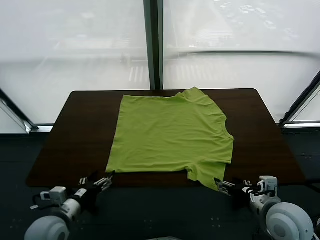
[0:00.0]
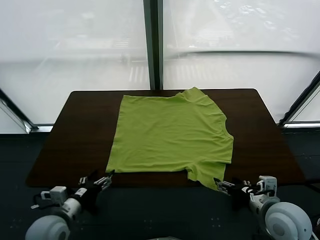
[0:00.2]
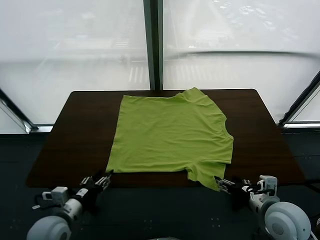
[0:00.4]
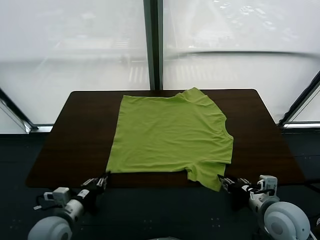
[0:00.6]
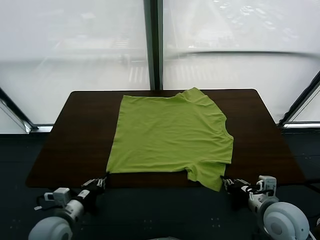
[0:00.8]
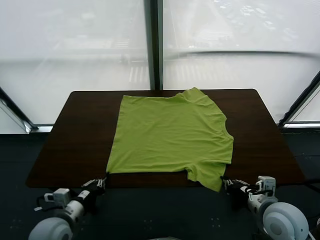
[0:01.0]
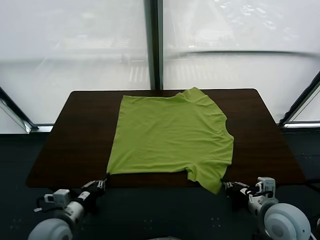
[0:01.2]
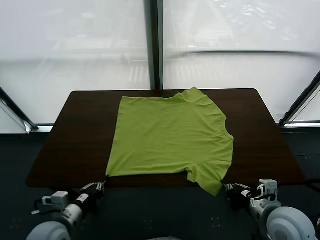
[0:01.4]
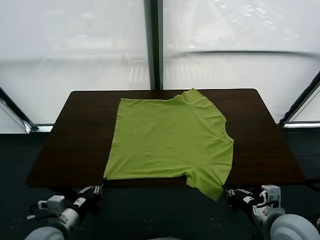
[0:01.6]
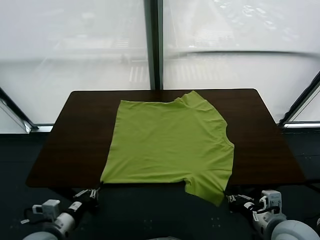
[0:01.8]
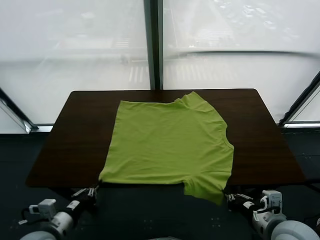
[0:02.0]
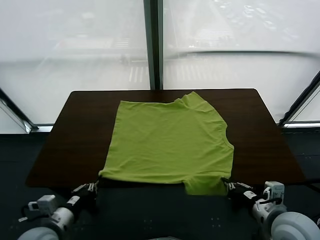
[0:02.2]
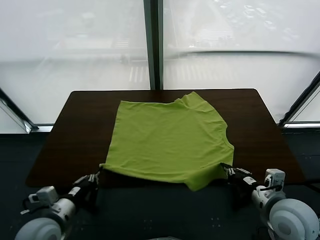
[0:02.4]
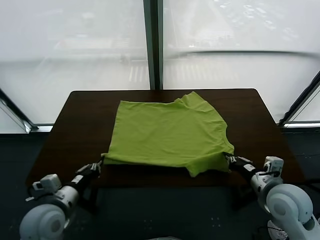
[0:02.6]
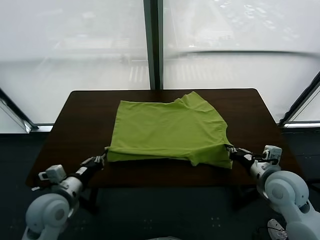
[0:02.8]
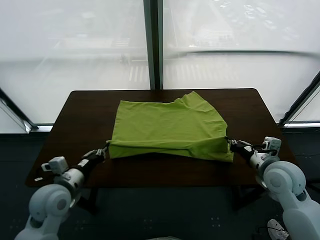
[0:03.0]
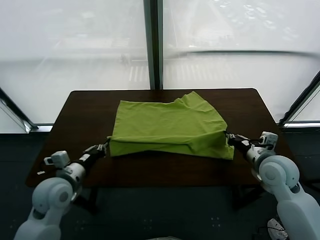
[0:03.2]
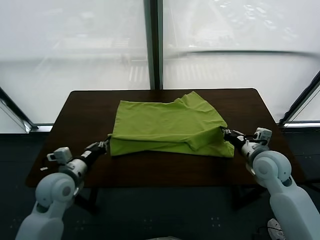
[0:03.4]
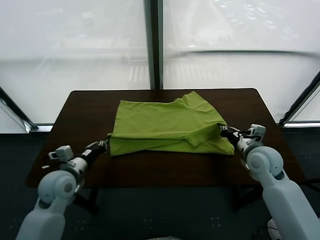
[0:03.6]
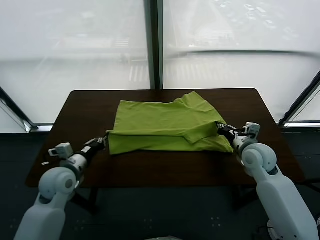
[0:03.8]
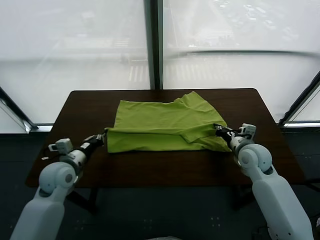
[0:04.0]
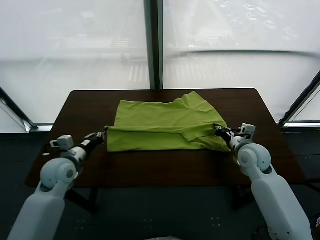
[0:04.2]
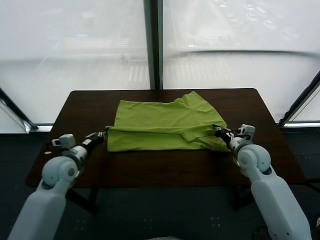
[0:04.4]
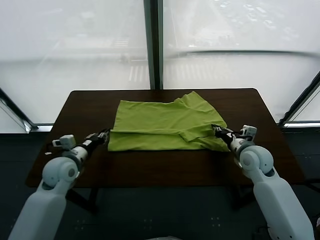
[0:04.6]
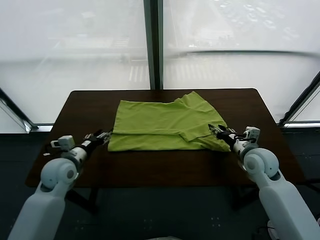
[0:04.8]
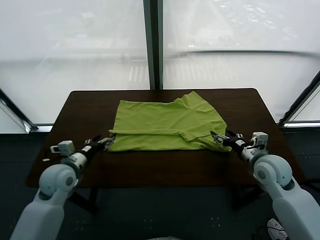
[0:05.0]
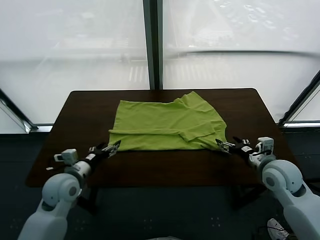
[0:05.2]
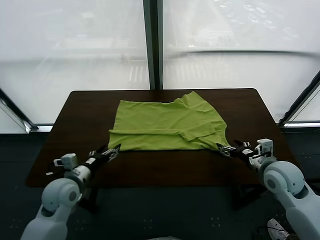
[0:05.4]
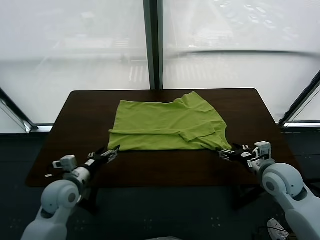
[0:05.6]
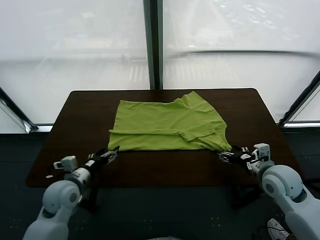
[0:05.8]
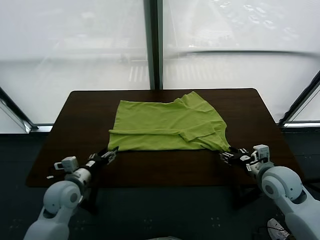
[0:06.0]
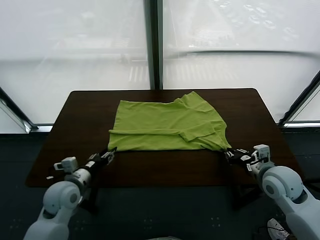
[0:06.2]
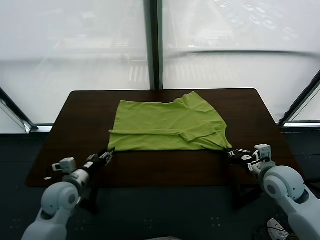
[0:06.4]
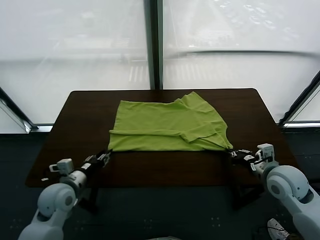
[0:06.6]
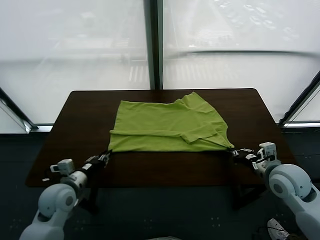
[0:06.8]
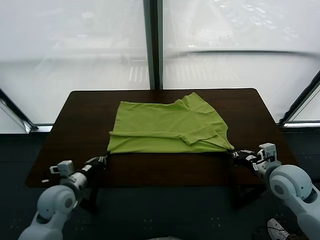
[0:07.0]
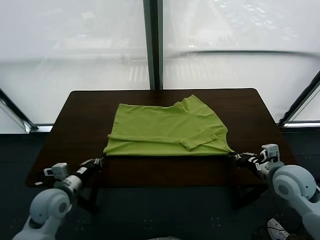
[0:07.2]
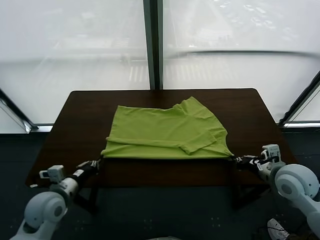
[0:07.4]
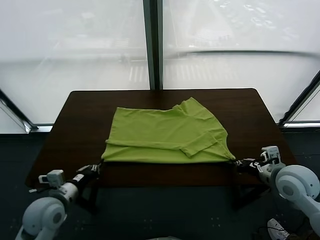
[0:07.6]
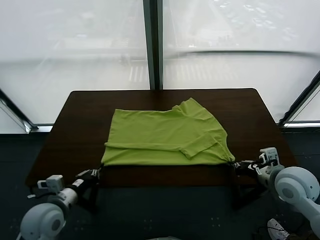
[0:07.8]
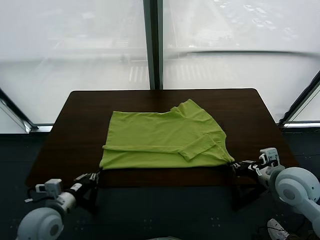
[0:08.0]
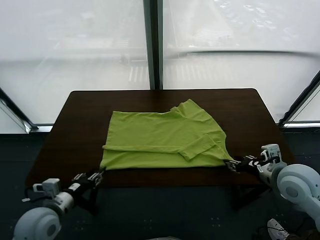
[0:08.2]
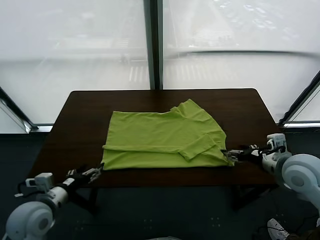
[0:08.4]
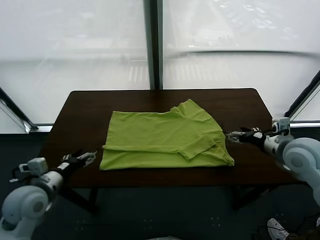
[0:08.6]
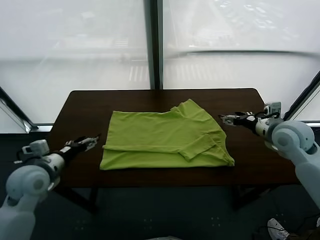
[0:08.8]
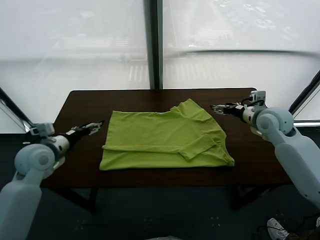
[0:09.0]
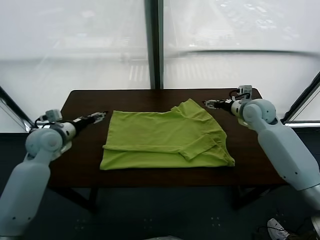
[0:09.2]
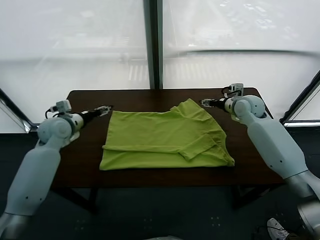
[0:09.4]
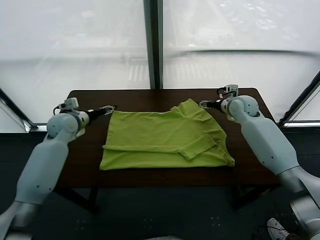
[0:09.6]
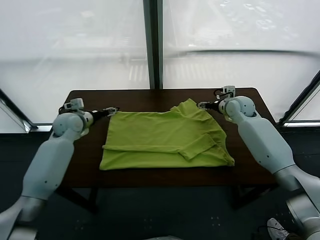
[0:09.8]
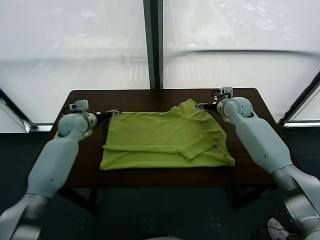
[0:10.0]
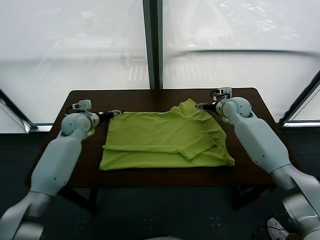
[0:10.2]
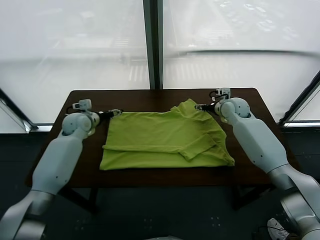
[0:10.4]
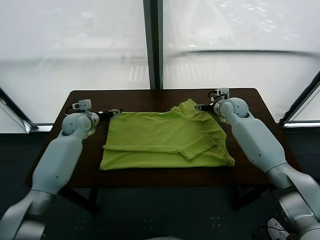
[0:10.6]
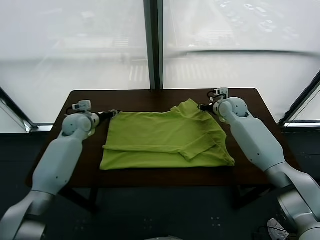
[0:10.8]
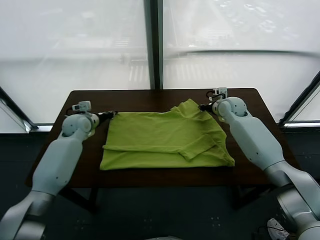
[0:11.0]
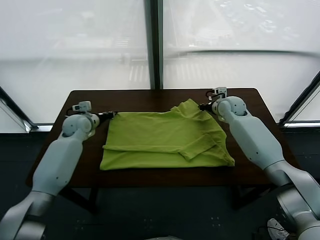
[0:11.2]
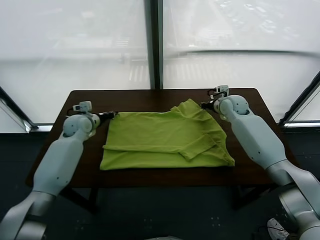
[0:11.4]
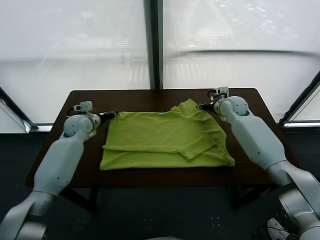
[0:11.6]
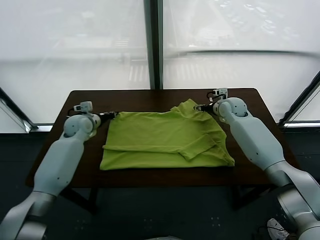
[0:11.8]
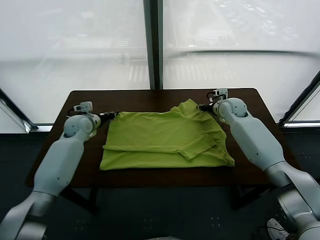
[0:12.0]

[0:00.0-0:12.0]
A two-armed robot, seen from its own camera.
Task of the whole recording: fold and organize the clothes.
Step, 0:00.0 to 0:01.4: use both grippers simultaneously to clamp the lower edge of the clothing fabric.
Step, 0:01.6 to 0:04.8: use both grippers to drag the lower edge of the fabric forward and fold it over the upper edge.
Step, 0:05.0 to 0:08.2: Drag the clothes downward with both gripper.
0:01.6 to 0:03.0: The left gripper is displaced forward by roughly 10 cm. The right gripper is displaced forward by some 15 cm.
0:03.0 to 0:04.4: The right gripper goes about 10 cm forward and downward. The left gripper is displaced forward by about 10 cm.
0:04.4 to 0:06.0: The two grippers go some 10 cm backward. The left gripper opens its fingers; the right gripper opens, then closes once more.
0:06.0 to 0:07.6: The left gripper moves approximately 5 cm, and closes up.
0:07.6 to 0:09.0: The left gripper is displaced forward and upward by approximately 10 cm, and opens. The right gripper travels forward by about 20 cm, and opens its fingers.
0:09.0 to 0:10.4: The left gripper moves forward, roughly 20 cm. The right gripper goes some 15 cm forward, downward and to the left.
0:10.4 to 0:12.0: The left gripper closes up. Meanwhile the right gripper closes.

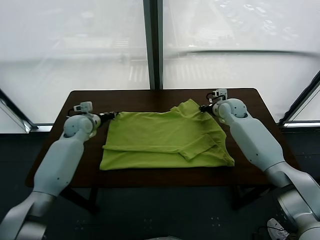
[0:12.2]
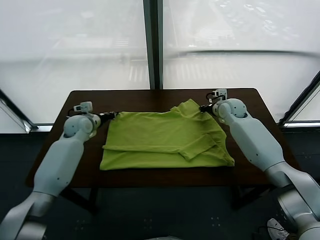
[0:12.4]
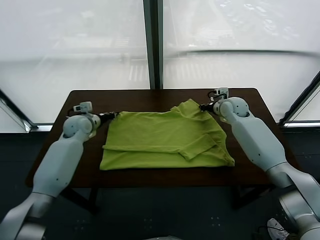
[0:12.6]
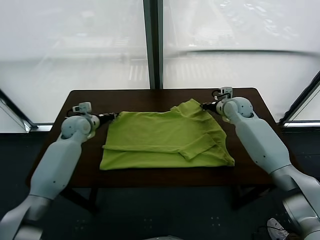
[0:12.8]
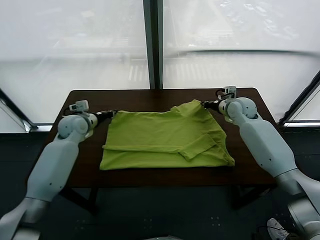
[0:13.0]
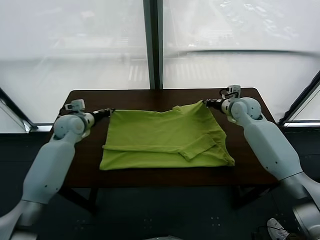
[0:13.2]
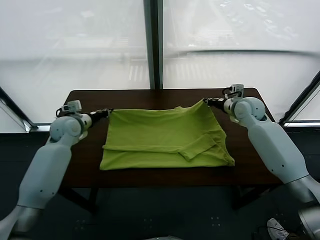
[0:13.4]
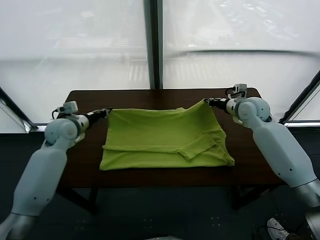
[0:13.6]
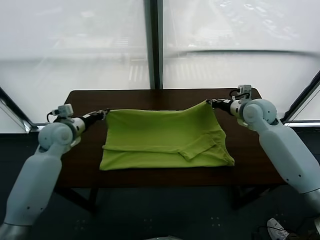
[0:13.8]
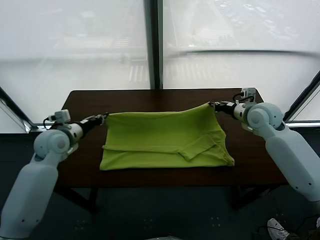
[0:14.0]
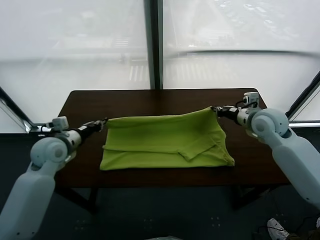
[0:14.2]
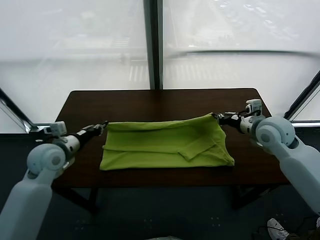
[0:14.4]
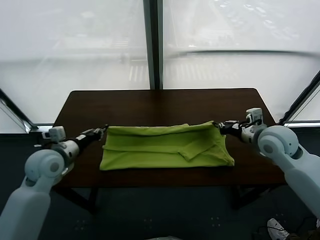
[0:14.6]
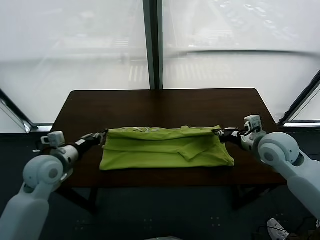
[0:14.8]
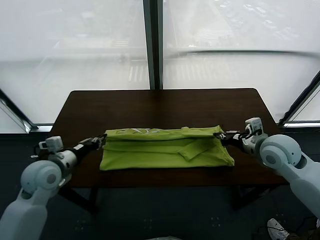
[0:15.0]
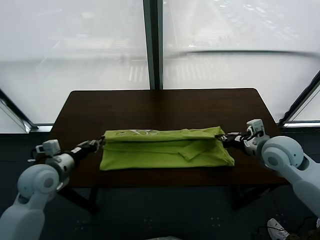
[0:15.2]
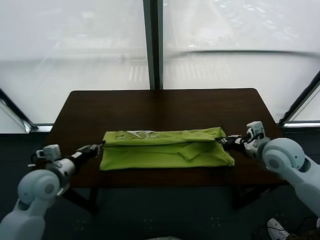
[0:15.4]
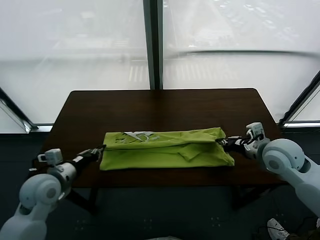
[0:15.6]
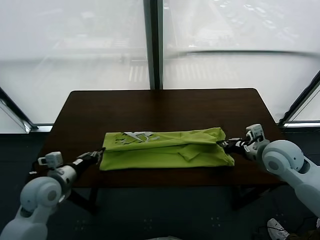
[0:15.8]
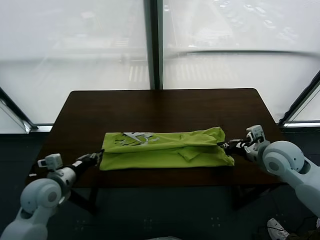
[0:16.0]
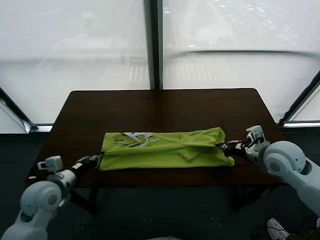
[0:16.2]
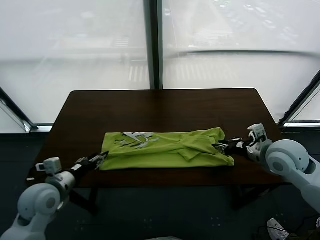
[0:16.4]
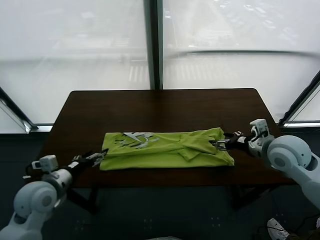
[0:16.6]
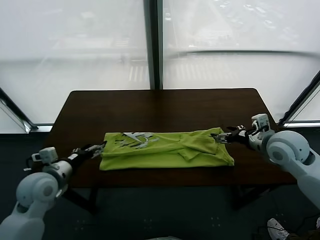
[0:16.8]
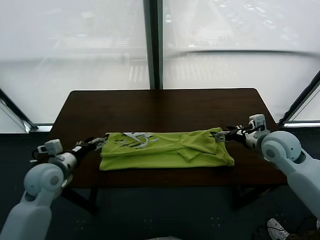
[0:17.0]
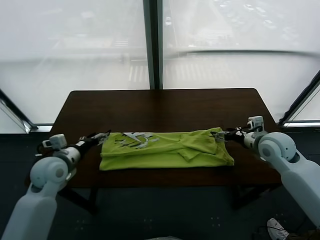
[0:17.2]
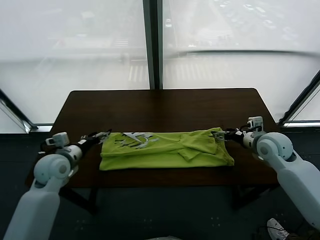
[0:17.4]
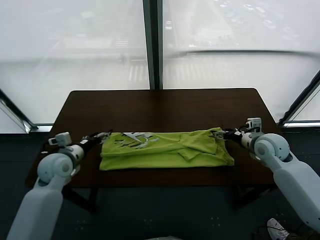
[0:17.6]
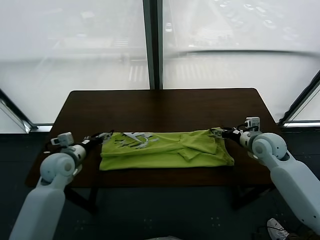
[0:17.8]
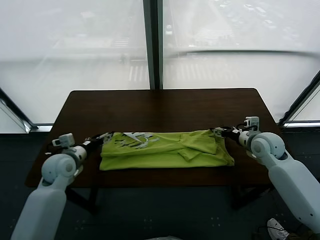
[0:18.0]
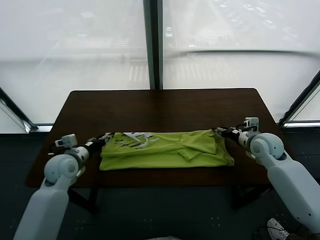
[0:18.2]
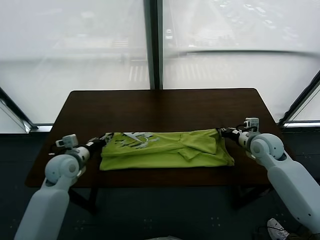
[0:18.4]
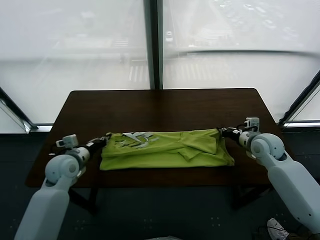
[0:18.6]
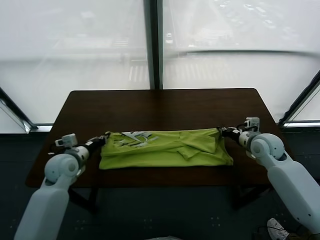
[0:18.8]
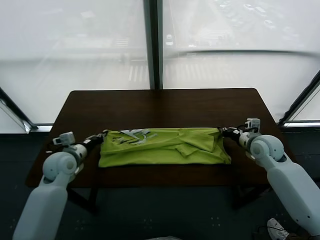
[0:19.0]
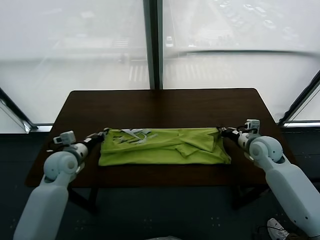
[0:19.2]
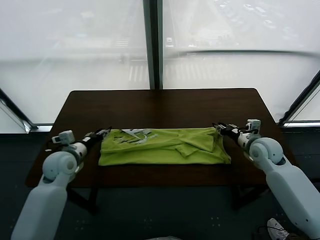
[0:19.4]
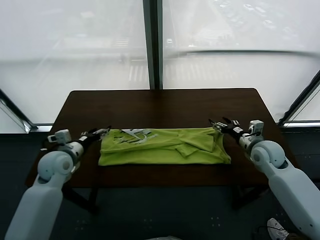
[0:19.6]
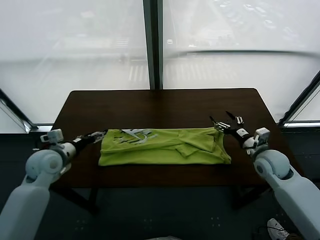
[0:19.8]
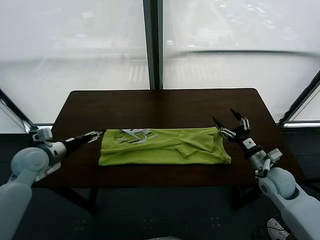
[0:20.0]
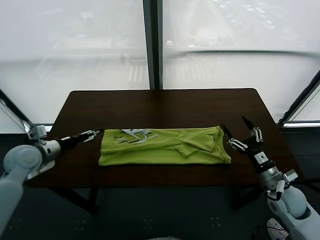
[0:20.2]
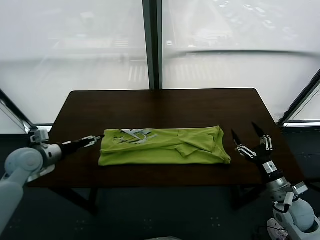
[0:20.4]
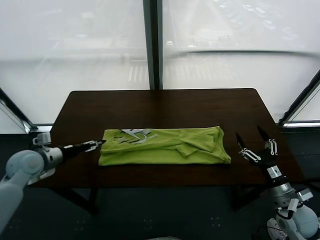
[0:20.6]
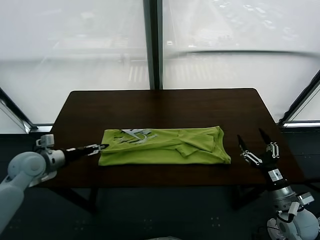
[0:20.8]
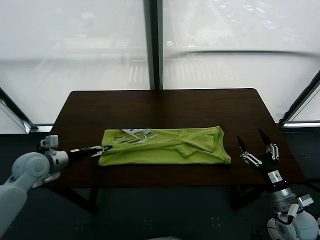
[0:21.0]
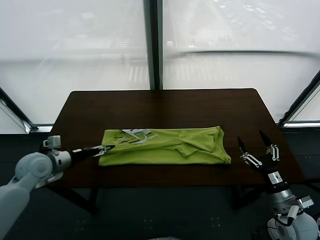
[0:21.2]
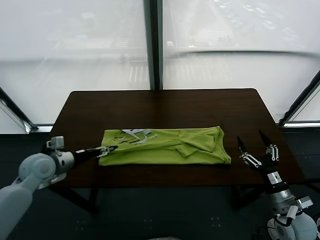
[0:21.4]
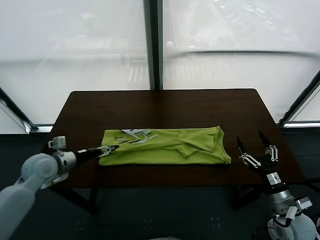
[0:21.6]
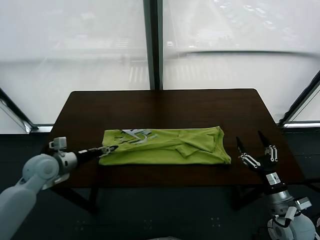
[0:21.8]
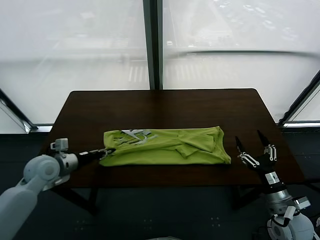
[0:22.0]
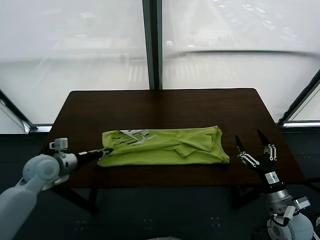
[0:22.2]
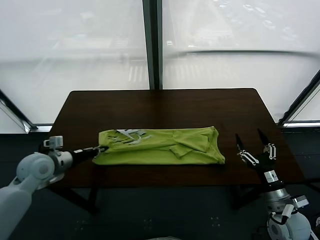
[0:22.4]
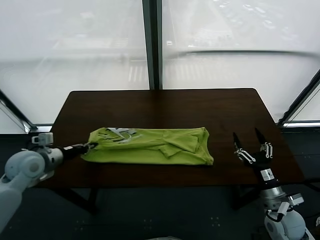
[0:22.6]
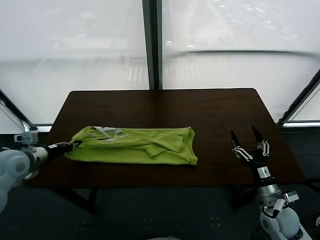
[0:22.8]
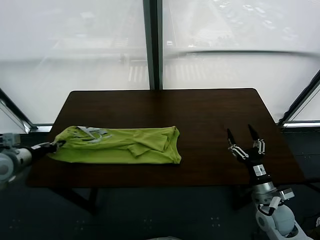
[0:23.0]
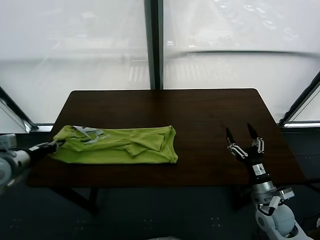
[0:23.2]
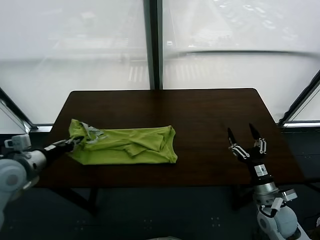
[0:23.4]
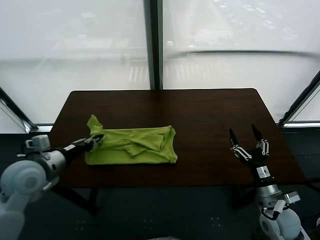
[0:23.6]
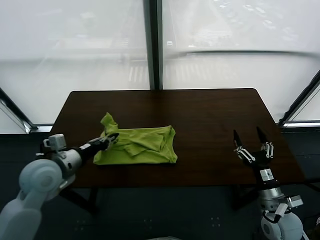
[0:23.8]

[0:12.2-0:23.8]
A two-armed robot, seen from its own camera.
Task of the whole recording: fold and organize the clothes.
Step, 0:13.0 to 0:16.6: use both grippers to drag the upper edge of the fabric backward and fold it over the lower edge.
Step, 0:16.8 to 0:22.2: use the left gripper to clamp the left edge of the fabric.
0:12.2 to 0:13.6: The right gripper moves upward and backward, about 10 cm. Meanwhile the left gripper ends up approximately 5 cm from where it was.
0:13.6 to 0:15.0: The two grippers go approximately 15 cm backward.
0:15.0 to 0:16.6: The right gripper opens its fingers. The left gripper heads backward, covering about 5 cm, and opens its fingers.
0:16.6 to 0:18.0: The right gripper goes roughly 10 cm downward and forward, while the left gripper goes some 10 cm forward.
0:18.0 to 0:19.4: The right gripper closes up; the left gripper closes its fingers.
0:19.4 to 0:21.0: The left gripper shifts roughly 5 cm to the left, and opens. Meanwhile the right gripper is displaced backward by about 20 cm, and opens up.
0:21.0 to 0:22.4: The left gripper closes its fingers.
0:22.4 to 0:23.8: The left gripper is displaced to the right and upward by about 10 cm.
